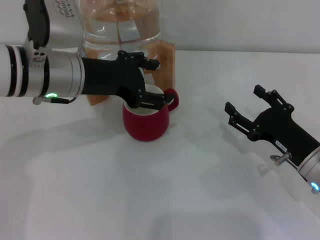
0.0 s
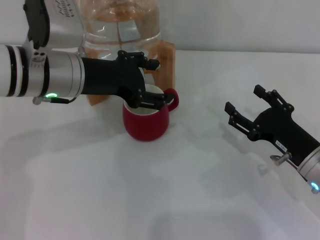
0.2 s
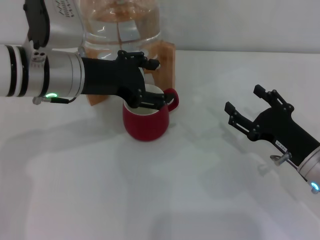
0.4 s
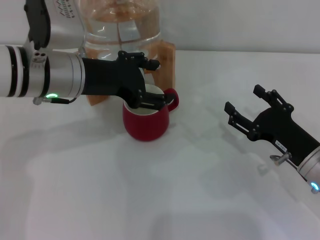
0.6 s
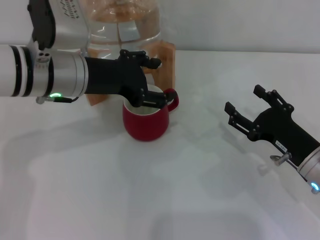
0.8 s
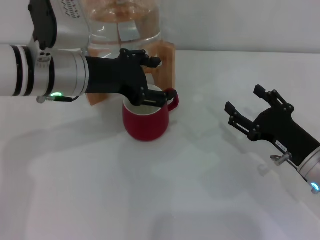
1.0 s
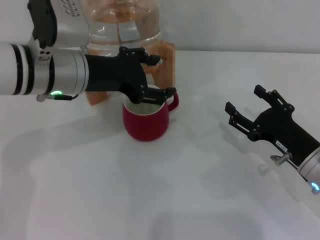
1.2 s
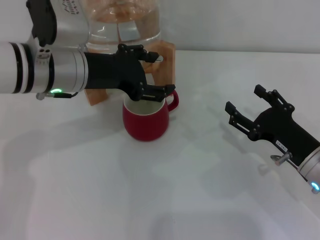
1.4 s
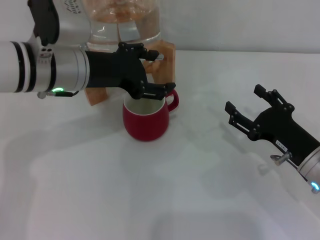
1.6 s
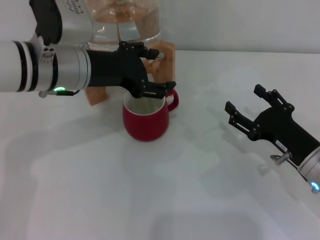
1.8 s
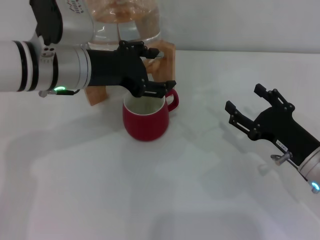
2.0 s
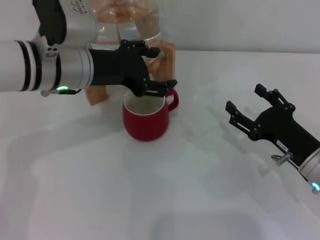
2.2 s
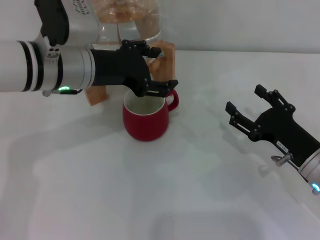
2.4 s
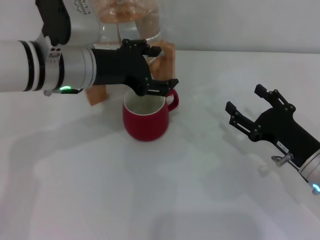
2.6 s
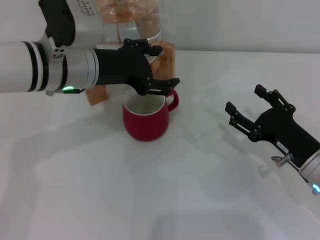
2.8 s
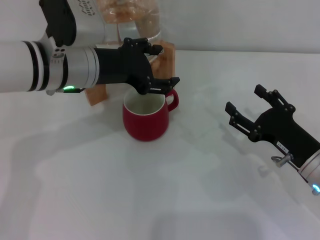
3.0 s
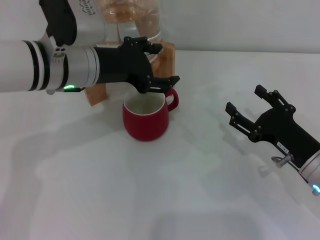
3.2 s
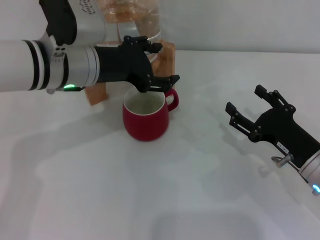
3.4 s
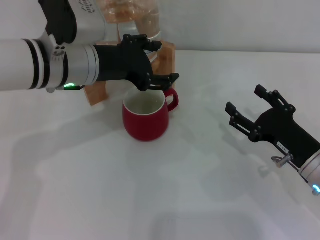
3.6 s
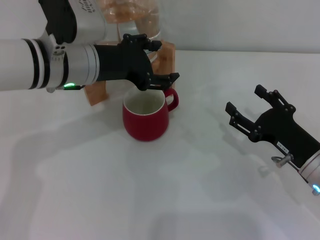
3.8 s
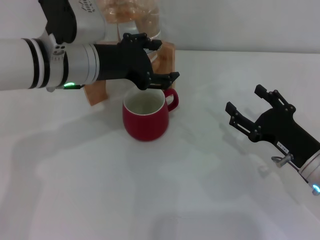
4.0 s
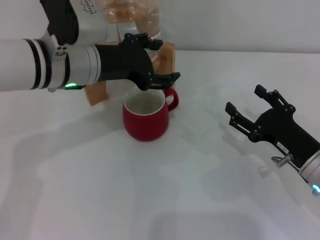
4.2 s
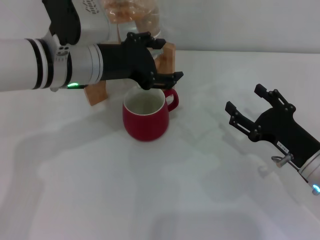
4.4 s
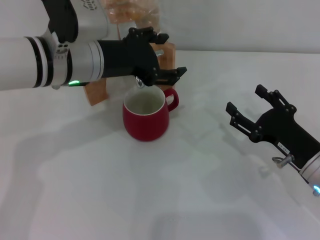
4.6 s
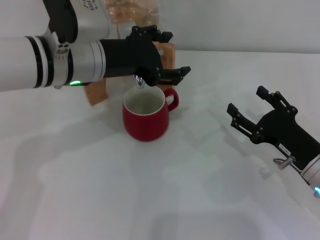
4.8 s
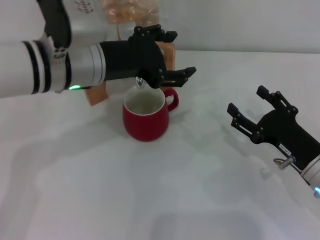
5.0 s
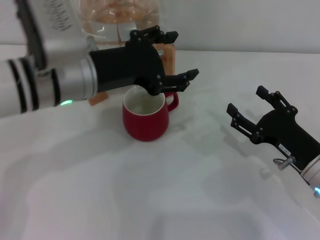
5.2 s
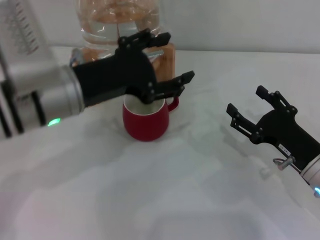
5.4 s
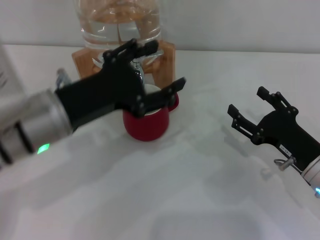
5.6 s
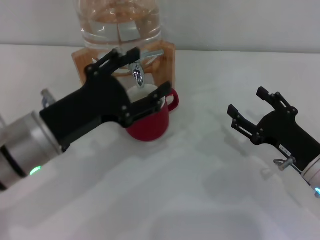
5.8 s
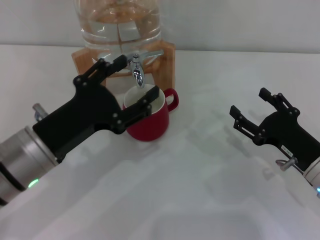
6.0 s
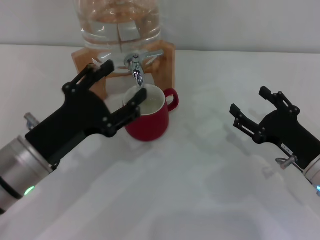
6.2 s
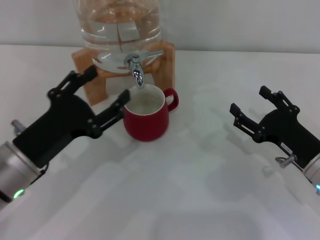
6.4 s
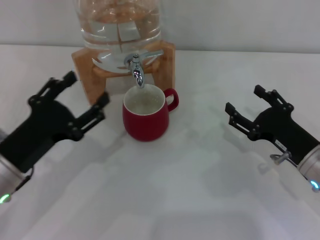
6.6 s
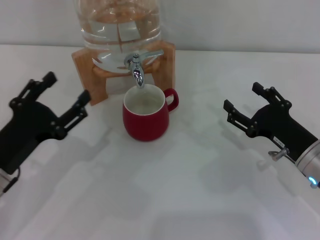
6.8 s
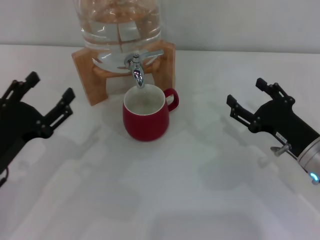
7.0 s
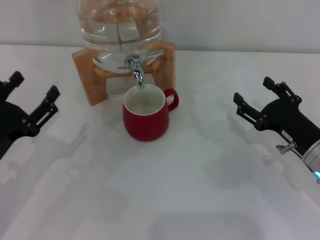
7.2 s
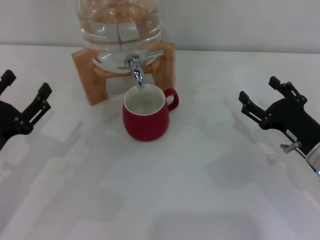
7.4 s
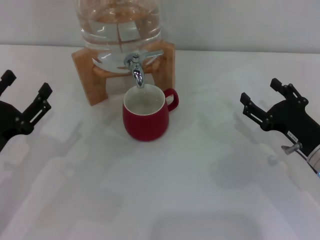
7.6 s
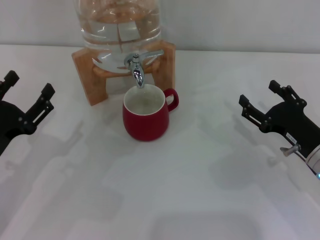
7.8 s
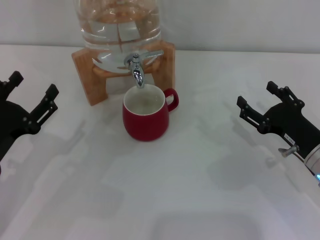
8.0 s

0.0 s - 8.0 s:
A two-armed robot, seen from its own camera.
Task of the whole recording: the right gripper pick up the red cup and place it horizontally under the faucet, the left gripper turn on the faucet to fill the cup, and then turn off the faucet.
Step, 0.0 s - 4.8 s: Close the dispenser valve with the left gripper.
0.0 s - 1.6 s: Both grippers stay about where they are.
1.6 s - 3.2 s: Neither gripper changes place.
3.2 s - 4.8 s: Both grippers stay about where they are.
4.8 s - 6.4 s: The left gripper travels backward, downward and to the left by approximately 20 cm.
6.4 s - 8.0 s: The left gripper travels to the left by about 5 cm.
